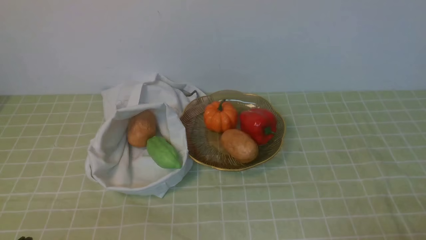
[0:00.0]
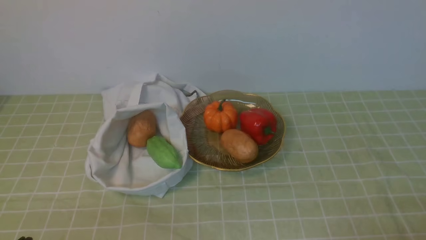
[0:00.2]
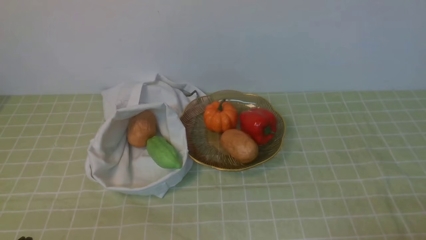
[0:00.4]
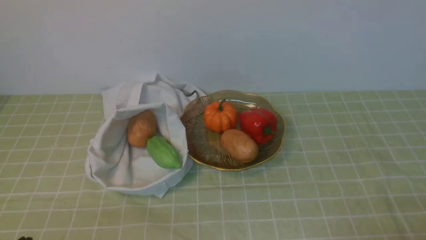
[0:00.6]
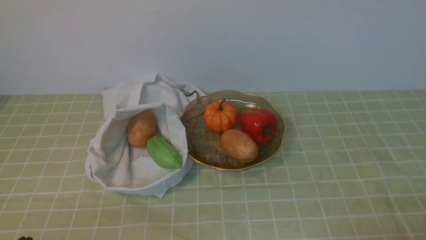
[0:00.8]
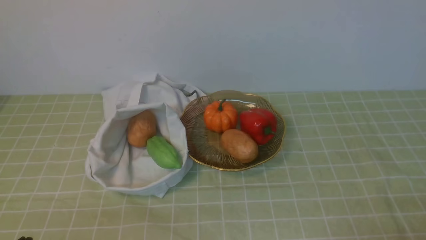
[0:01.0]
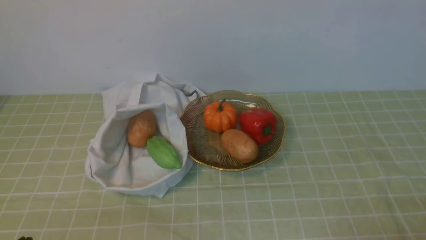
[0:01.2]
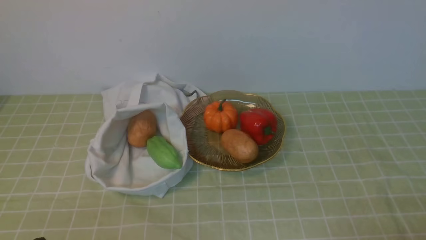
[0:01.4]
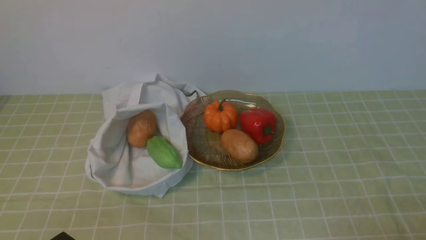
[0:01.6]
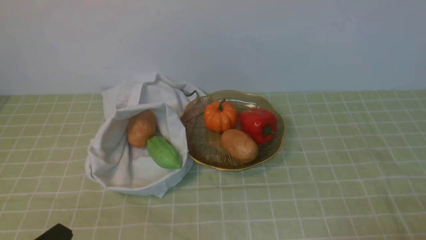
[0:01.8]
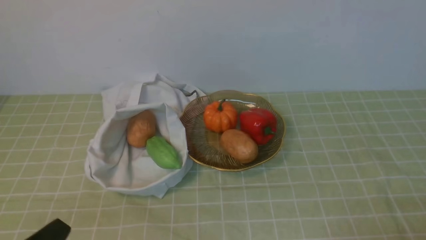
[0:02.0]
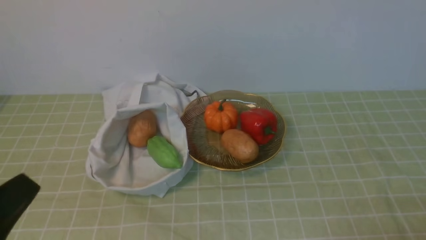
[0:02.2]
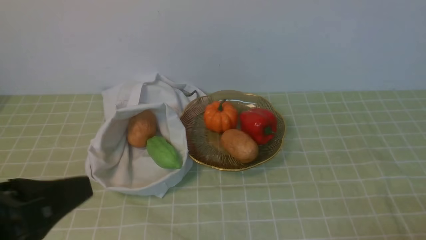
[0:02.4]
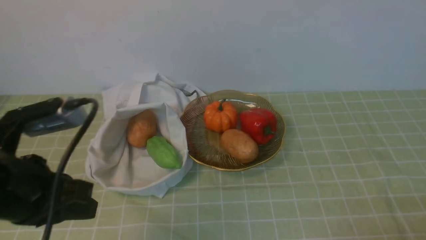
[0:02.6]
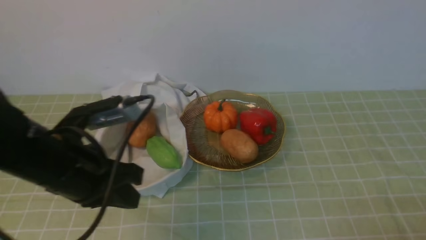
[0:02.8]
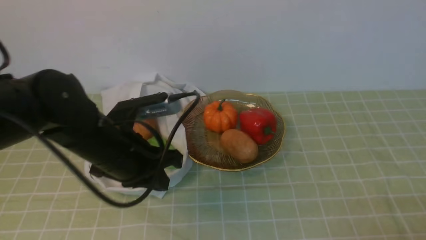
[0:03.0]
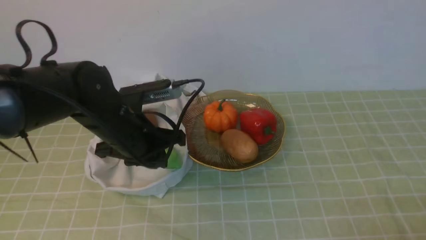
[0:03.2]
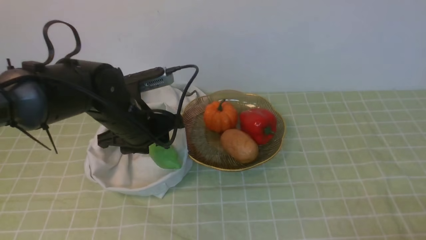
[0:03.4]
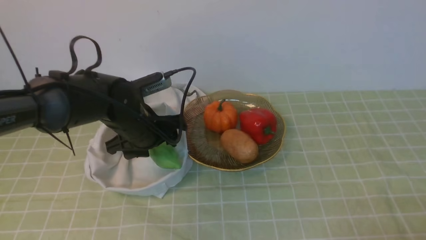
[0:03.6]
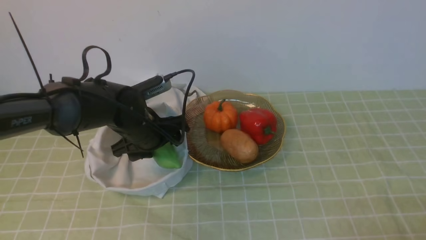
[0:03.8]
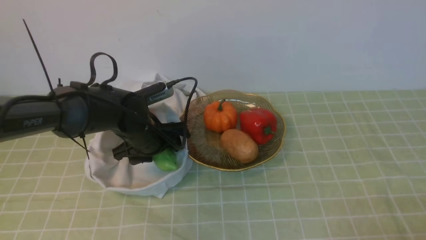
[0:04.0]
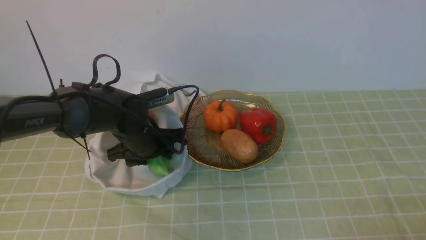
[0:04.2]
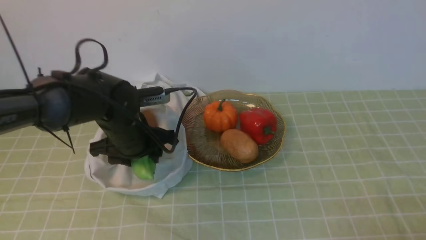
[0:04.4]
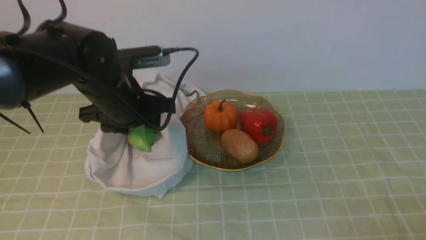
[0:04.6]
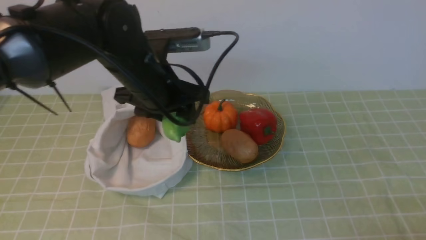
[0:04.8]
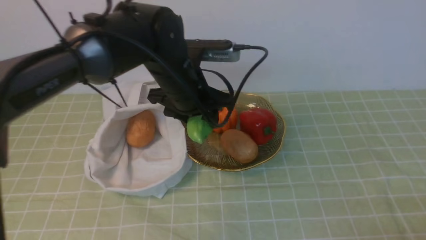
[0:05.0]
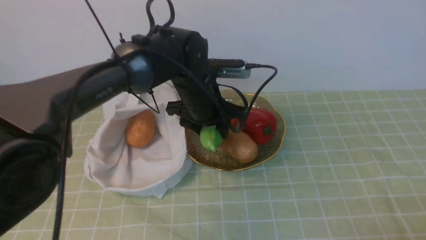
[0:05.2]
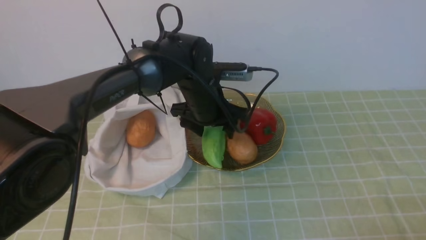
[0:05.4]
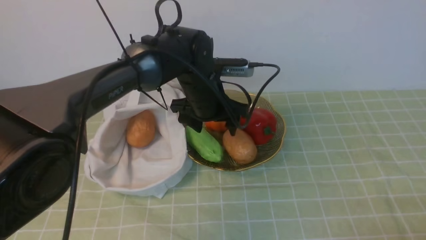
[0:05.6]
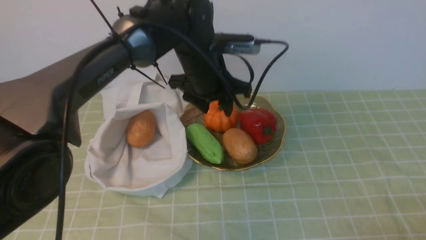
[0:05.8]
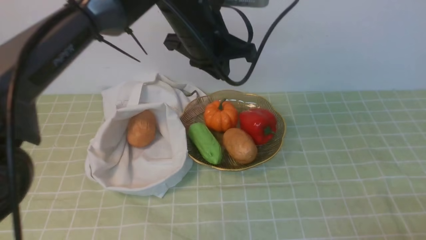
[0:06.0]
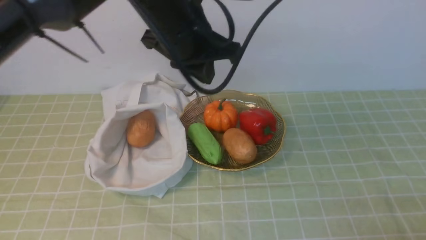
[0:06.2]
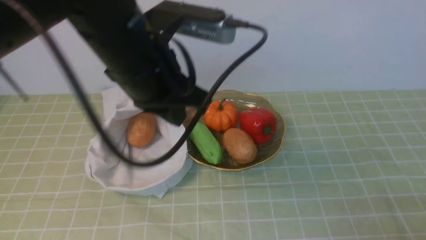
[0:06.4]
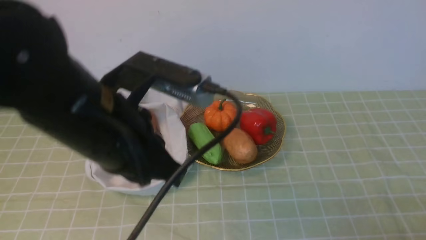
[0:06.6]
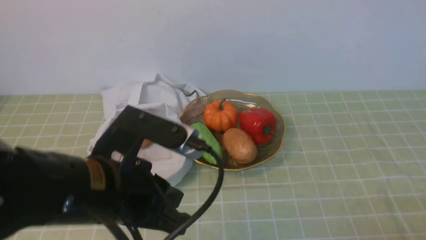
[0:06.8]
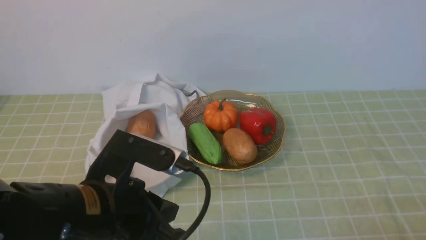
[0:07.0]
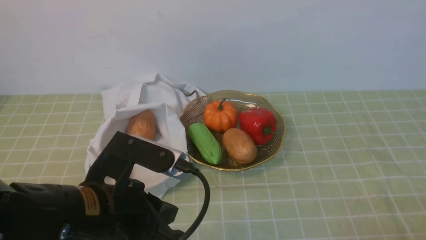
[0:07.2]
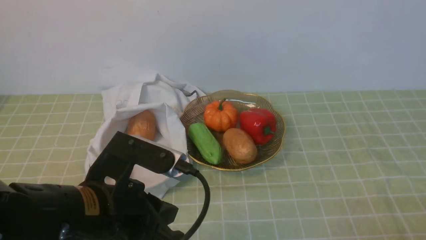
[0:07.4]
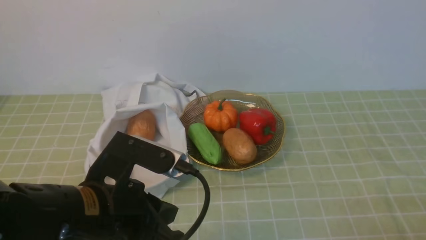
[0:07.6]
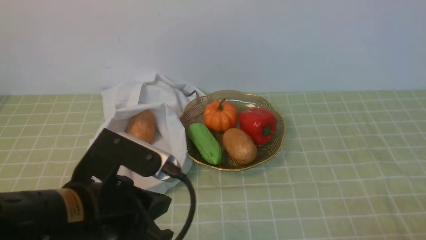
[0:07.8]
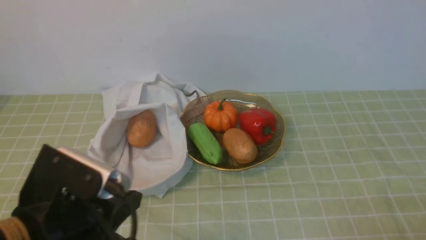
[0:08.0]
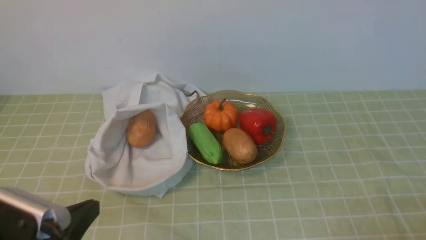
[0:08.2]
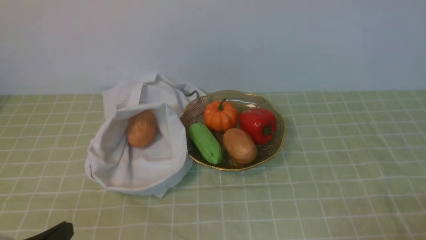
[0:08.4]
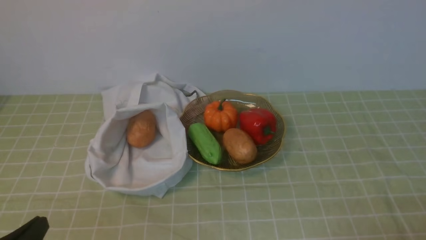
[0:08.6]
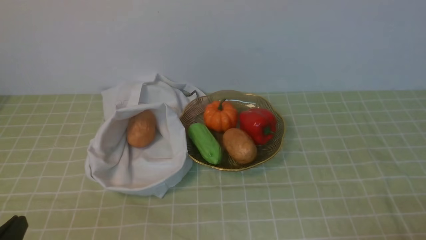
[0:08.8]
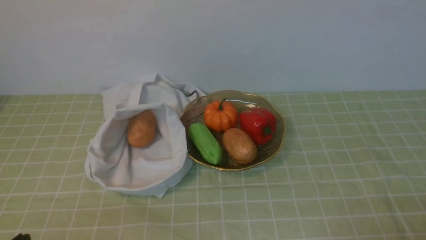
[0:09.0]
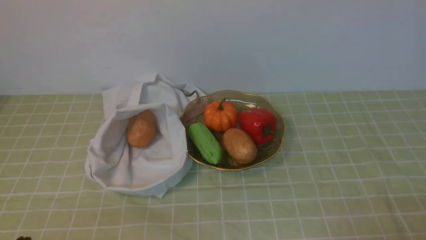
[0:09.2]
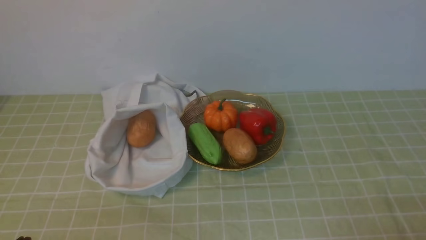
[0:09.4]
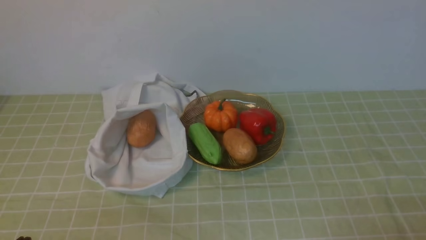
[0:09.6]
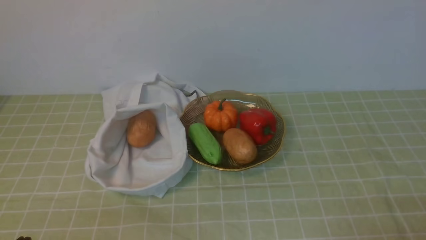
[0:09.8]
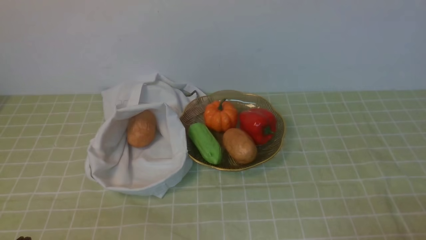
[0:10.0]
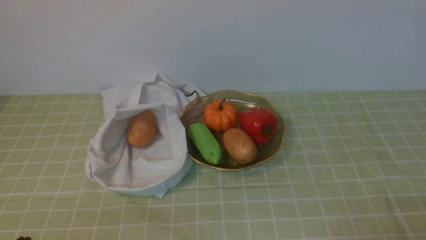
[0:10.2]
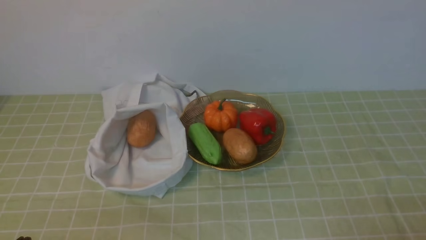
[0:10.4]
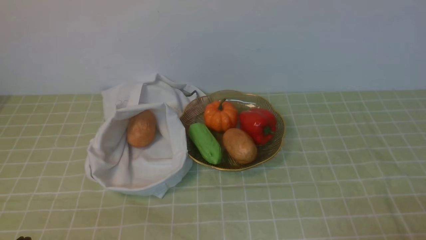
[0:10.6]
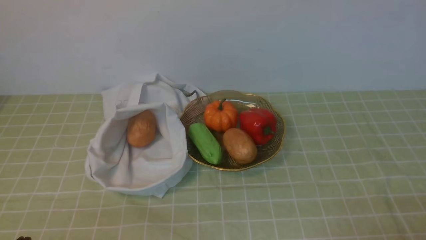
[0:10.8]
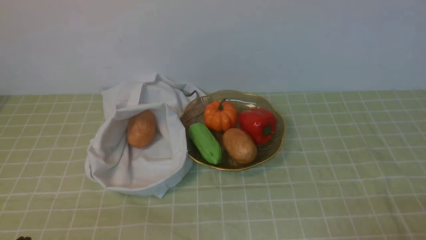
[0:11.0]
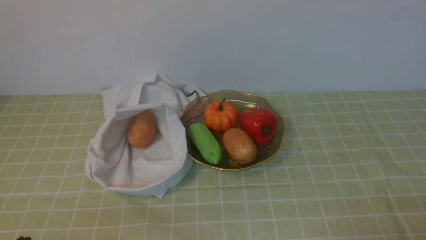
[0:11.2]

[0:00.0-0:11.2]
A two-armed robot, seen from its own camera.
Task of the whole recording: take vegetables from bag on green coffee tablecloth place on plate.
Step, 0:00.0 to 0:04.2: Grasp the bitter melon with left gripper.
Step, 0:04.4 to 0:05.6: Place the bitter melon on the plate with left gripper.
0:01.6 to 0:03.2: The left gripper heads forward, covering about 25 cm.
0:03.2 to 0:04.8: The left gripper goes some 5 cm upward, and opens up.
0:04.8 to 0:06.4: The left gripper heads backward and upward, covering approximately 10 cm, and closes.
0:06.4 to 0:08.0: The left gripper goes some 20 cm backward, downward and to the left.
0:08.0 to 0:09.6: The left gripper goes about 15 cm to the left, downward and backward.
0:09.6 to 0:11.2: The two grippers keep their place.
